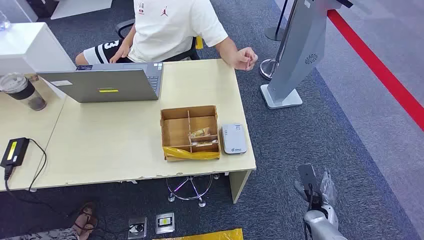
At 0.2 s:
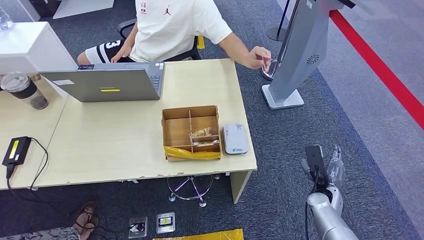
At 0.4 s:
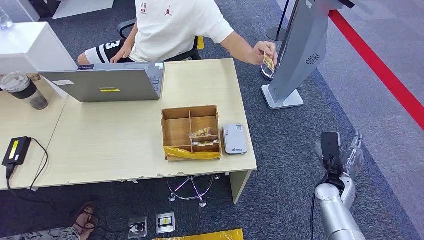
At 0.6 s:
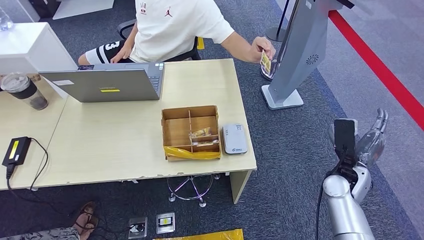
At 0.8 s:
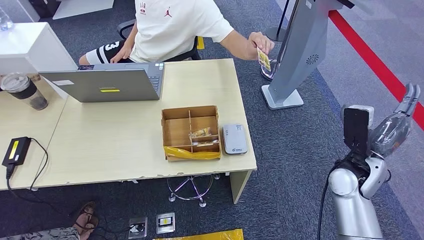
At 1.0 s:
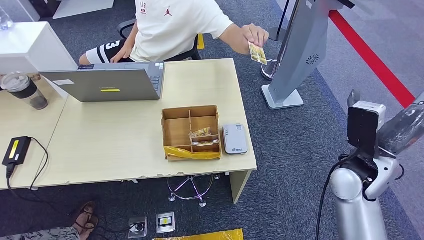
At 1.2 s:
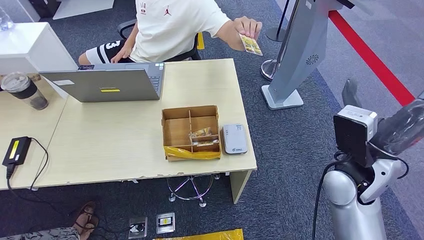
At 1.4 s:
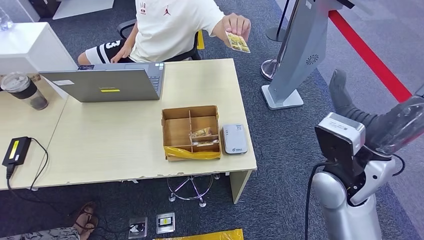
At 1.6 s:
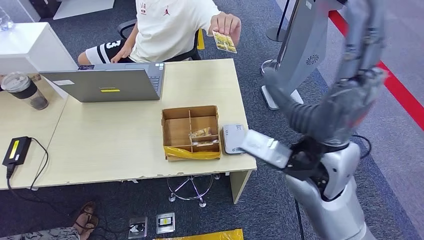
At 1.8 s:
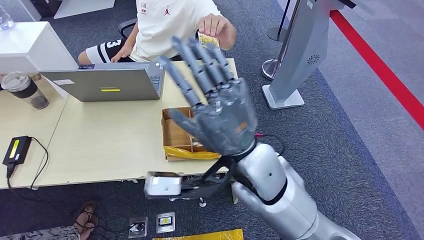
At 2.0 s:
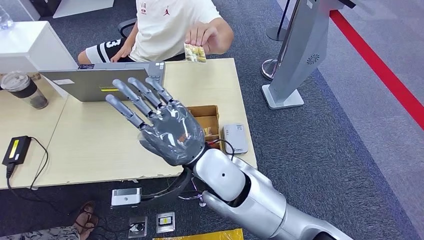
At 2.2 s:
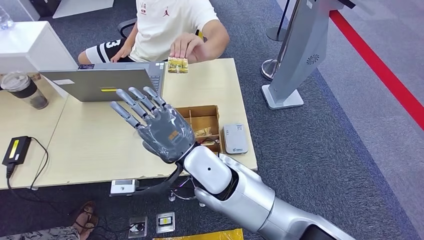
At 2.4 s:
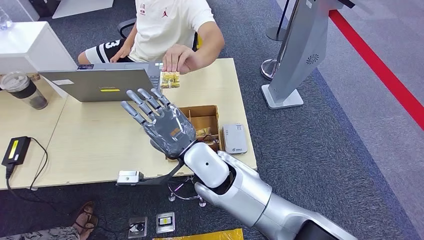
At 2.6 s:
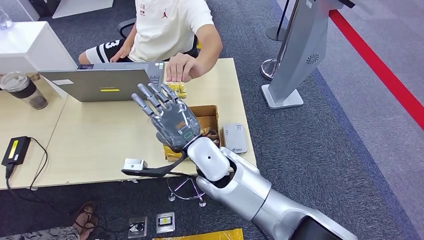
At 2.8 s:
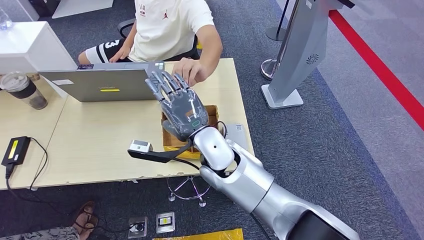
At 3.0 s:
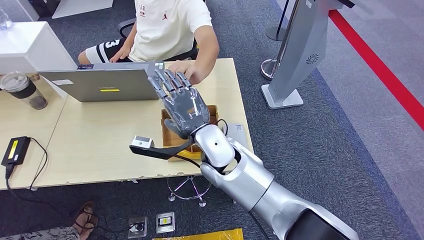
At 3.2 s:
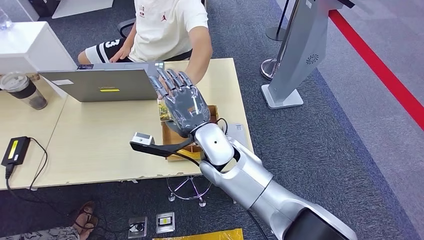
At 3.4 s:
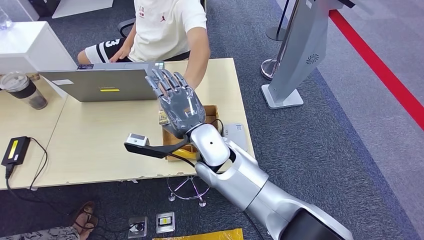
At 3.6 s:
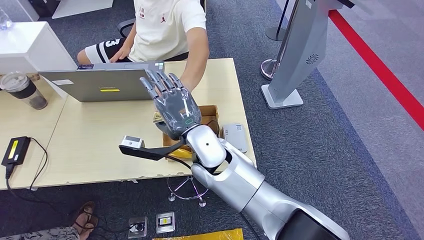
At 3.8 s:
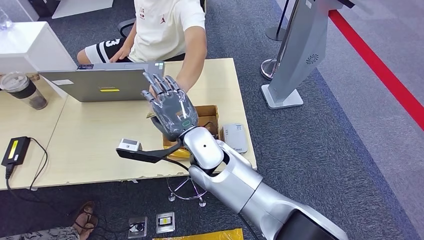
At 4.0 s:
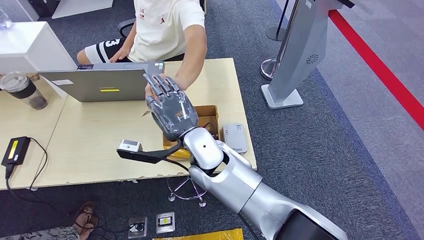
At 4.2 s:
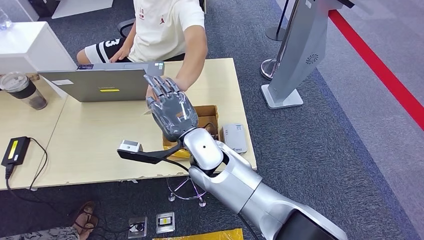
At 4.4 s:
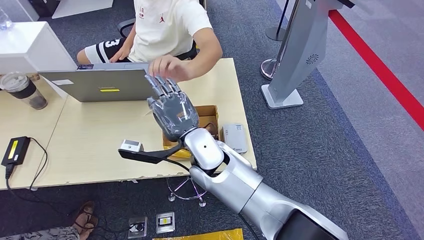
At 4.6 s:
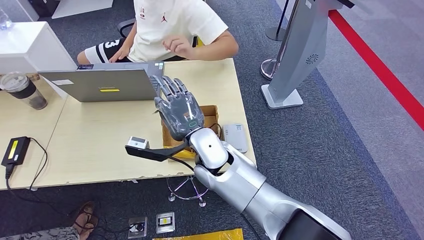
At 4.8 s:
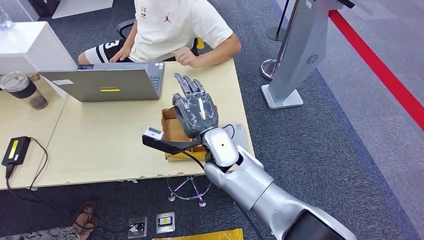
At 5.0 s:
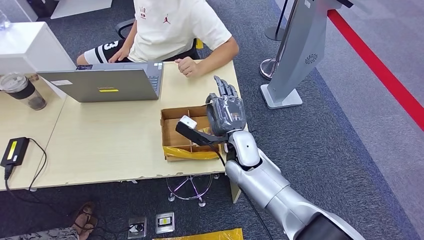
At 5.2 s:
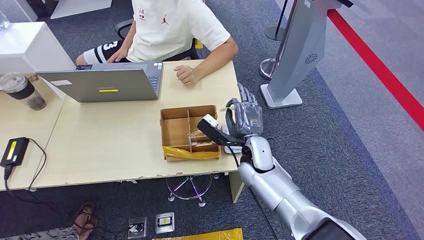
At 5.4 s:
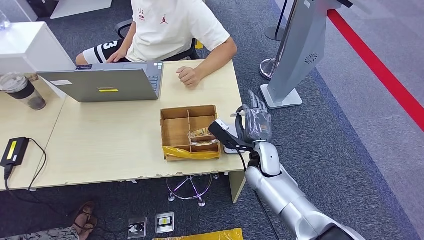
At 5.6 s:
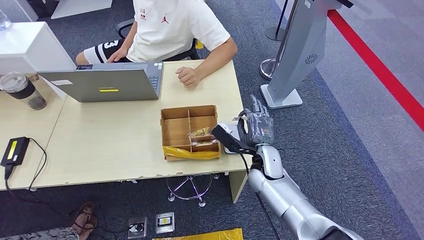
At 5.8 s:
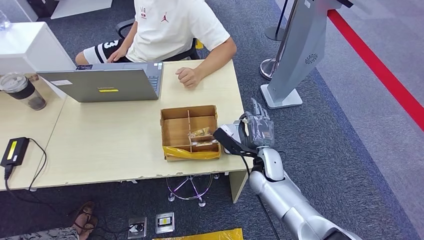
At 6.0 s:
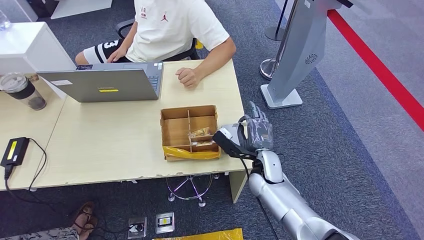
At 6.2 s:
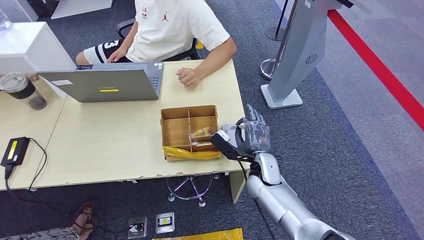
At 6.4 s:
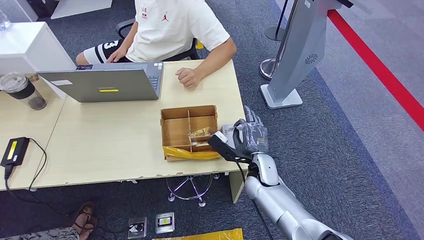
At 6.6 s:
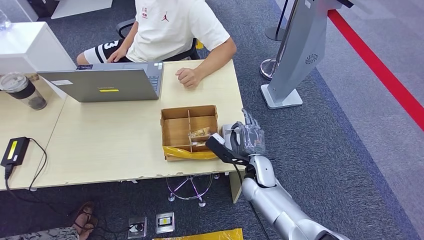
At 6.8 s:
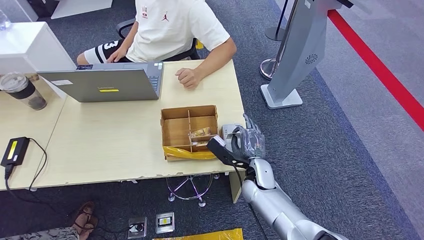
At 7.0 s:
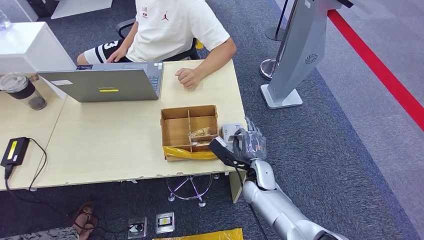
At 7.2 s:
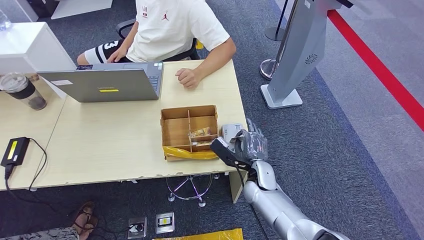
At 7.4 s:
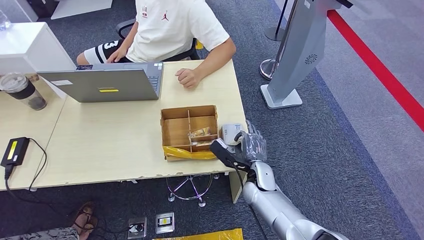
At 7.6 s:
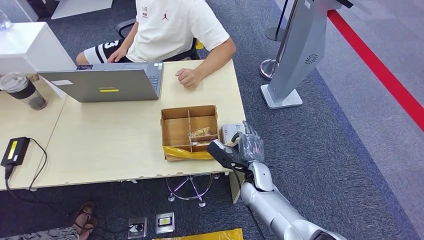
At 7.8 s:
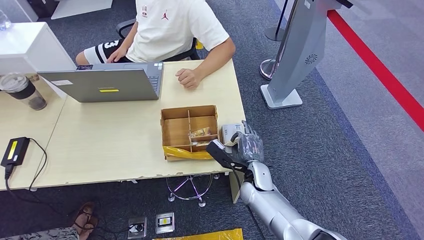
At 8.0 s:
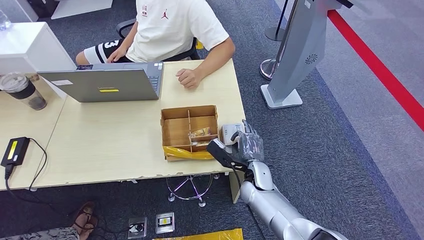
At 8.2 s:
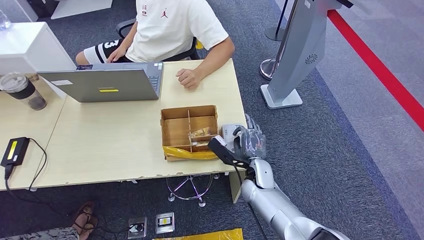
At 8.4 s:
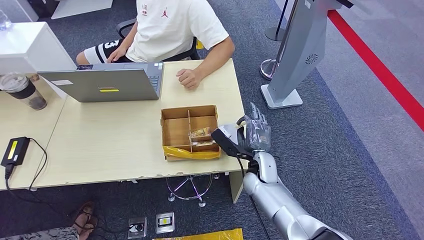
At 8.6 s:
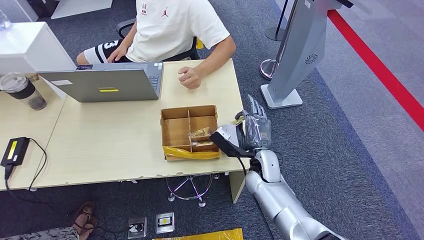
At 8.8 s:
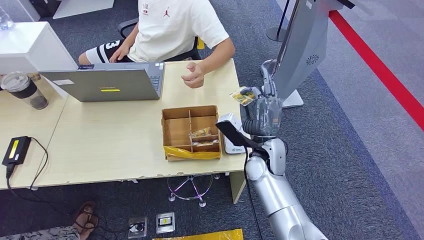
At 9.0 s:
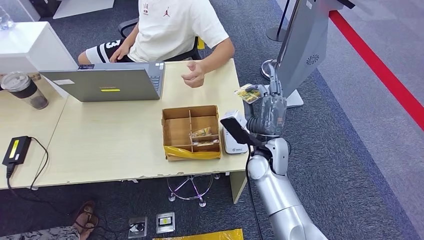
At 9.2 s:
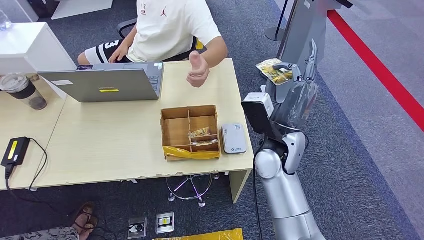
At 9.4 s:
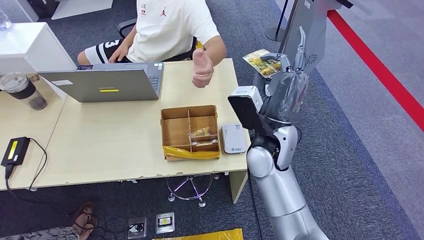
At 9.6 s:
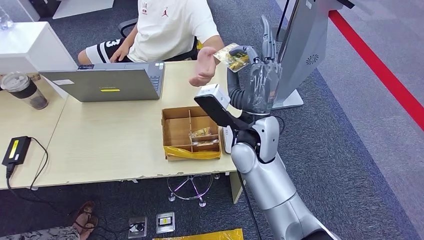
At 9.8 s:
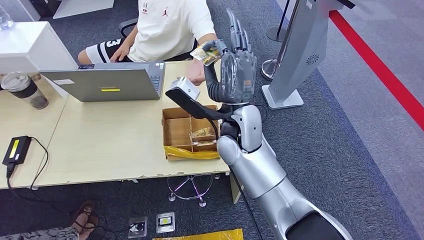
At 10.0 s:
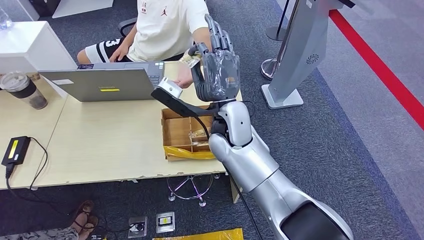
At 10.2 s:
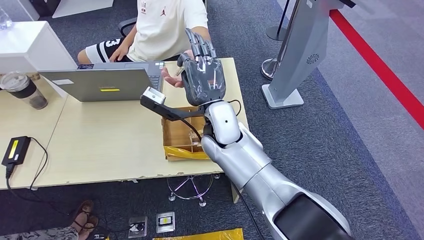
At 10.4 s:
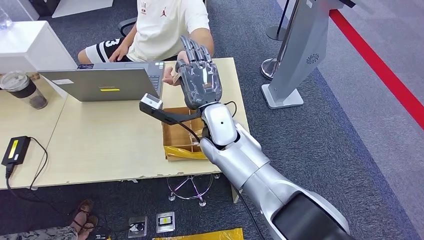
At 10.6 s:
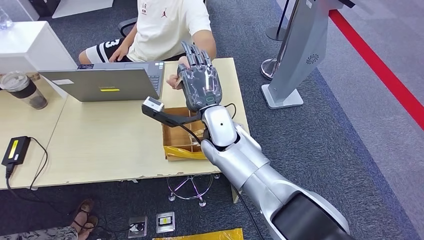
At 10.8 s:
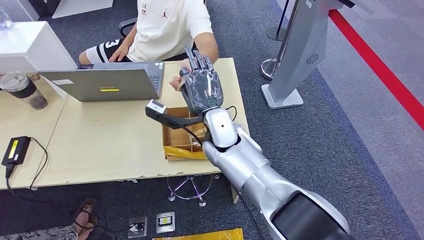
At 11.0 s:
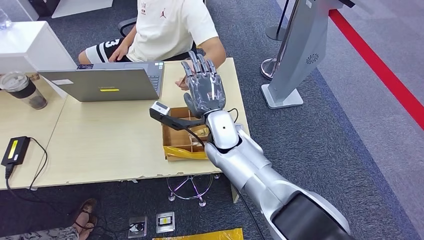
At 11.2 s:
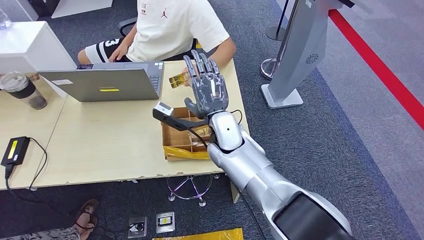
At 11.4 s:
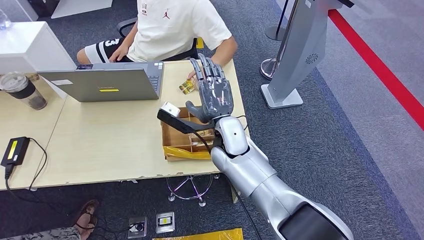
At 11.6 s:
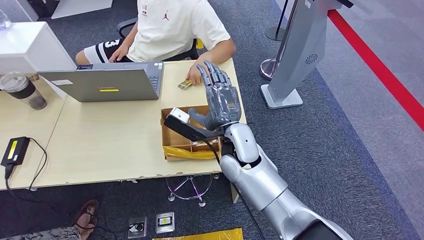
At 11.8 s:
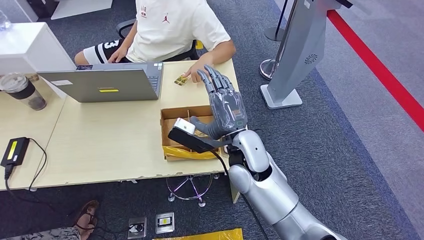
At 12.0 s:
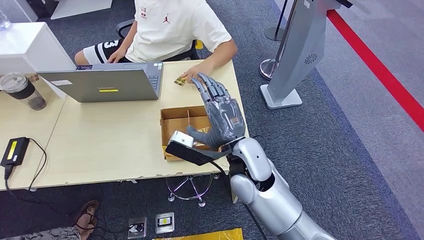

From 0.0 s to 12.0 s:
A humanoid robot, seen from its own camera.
Step, from 0.0 s to 4.4 s: Take the ID card from the person's hand.
Step, from 4.6 s to 7.4 s: Place the ID card on the card reader.
Step, from 7.8 s to 9.8 s: Hand the ID card to the person.
From 3.0 s to 4.4 s: There are only small adjustments of the hands.
From 4.4 s to 6.0 s: The right hand heads to the right and downward, covering about 20 cm.
From 6.0 s to 7.6 s: There are only small adjustments of the hands.
From 7.6 s to 9.0 s: The right hand heads upward, covering roughly 10 cm.
From 9.0 s to 10.4 s: The right hand heads to the left and upward, covering some 15 cm. The left hand changes place by roughly 5 cm.

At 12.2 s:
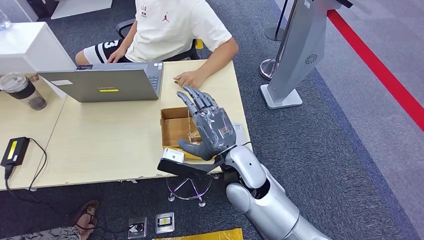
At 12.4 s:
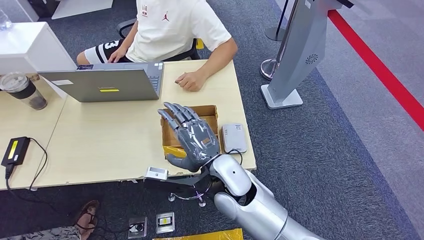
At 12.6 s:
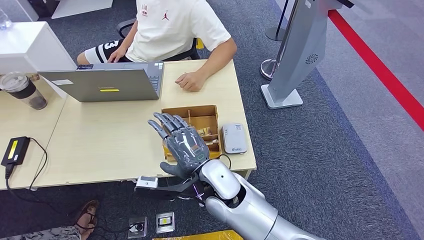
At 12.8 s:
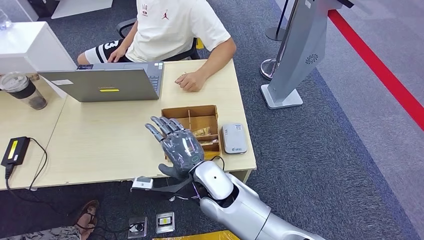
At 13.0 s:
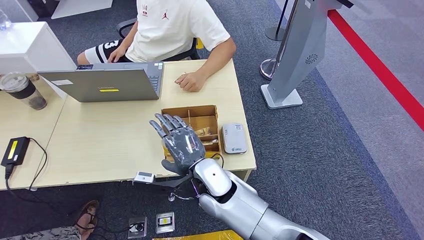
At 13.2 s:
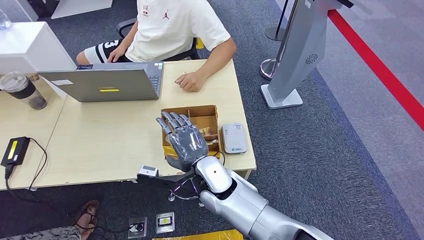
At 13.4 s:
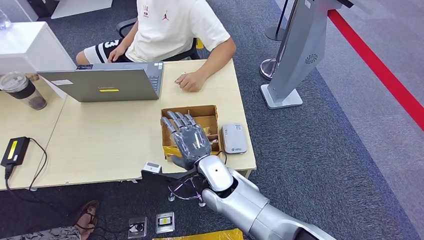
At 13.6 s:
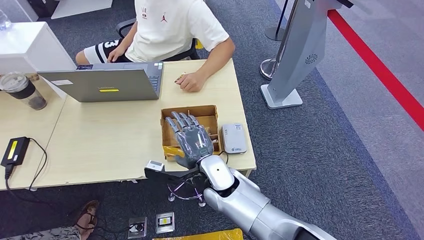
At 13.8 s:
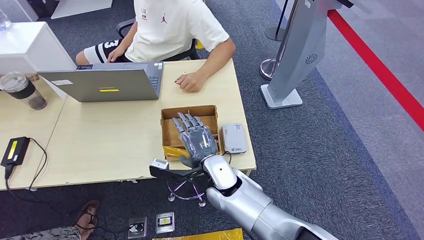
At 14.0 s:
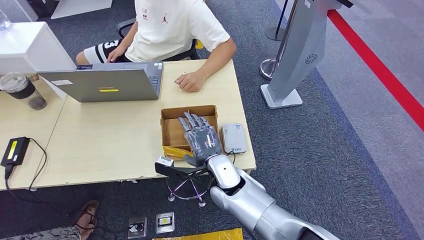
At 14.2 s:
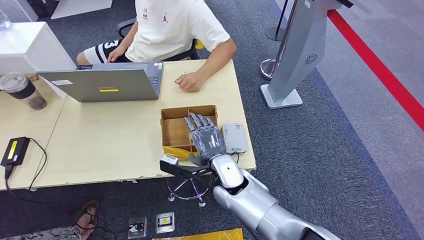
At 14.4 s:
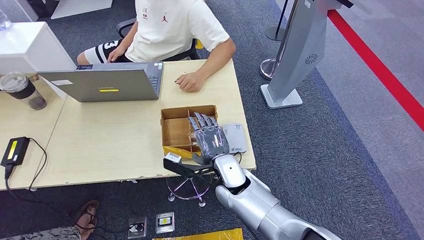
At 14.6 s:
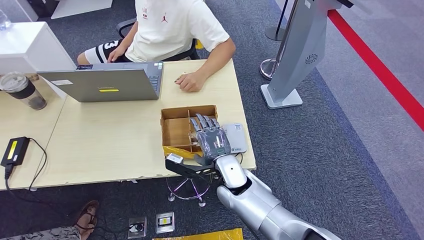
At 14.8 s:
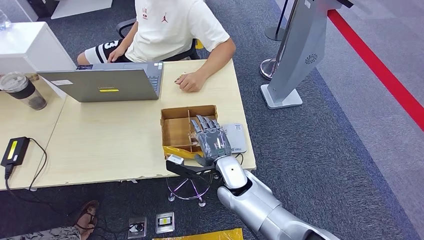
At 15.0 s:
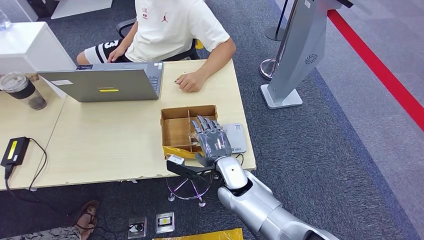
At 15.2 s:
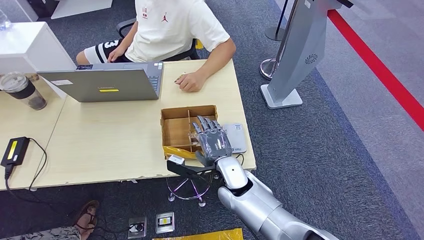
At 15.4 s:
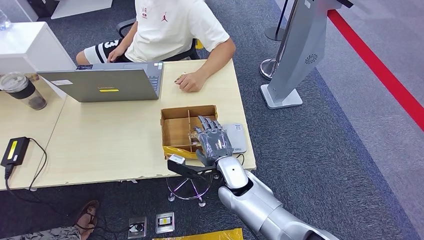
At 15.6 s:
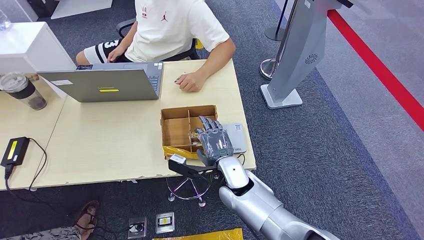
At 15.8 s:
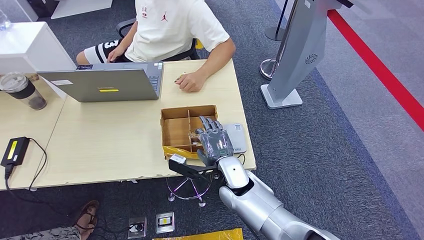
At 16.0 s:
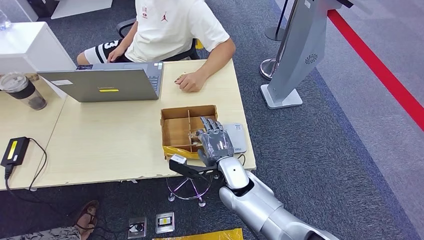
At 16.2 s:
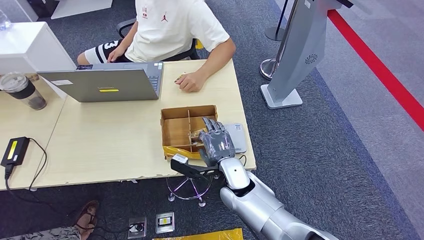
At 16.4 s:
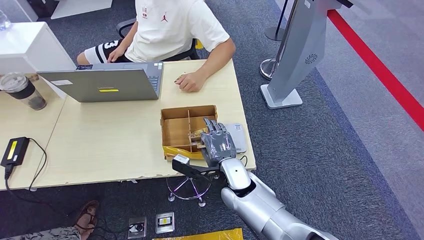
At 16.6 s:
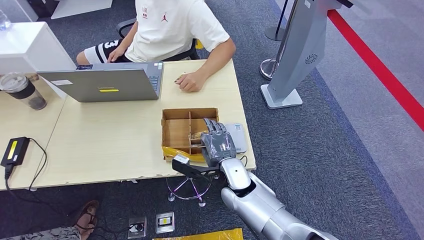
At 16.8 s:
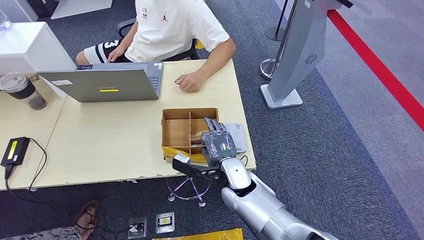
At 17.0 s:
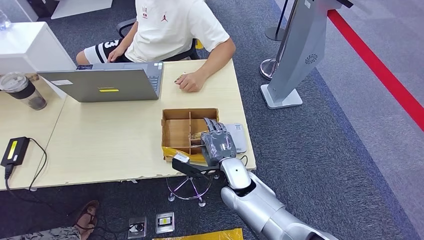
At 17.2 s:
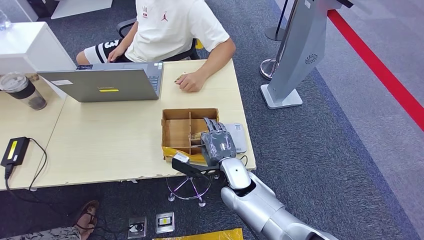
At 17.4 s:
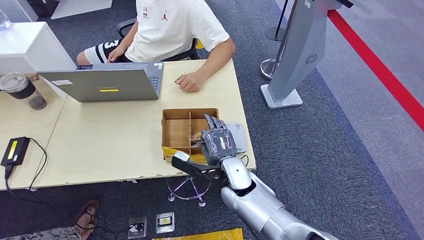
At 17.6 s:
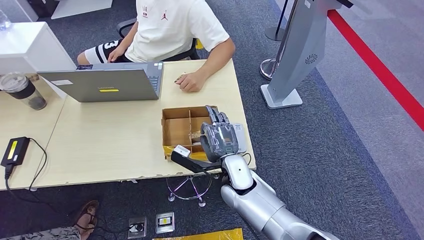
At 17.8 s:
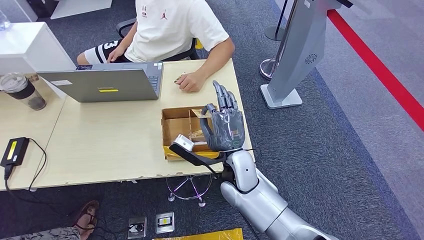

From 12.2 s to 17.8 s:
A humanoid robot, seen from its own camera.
From 12.2 s to 13.6 s: The right hand shifts about 10 cm downward.
From 13.6 s to 15.0 s: The hands move only a little.
From 15.0 s to 16.4 s: Both hands stay put.
From 16.4 s to 17.8 s: The right hand shifts some 5 cm upward.
